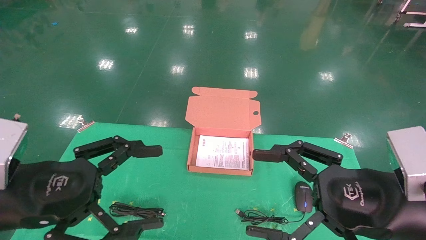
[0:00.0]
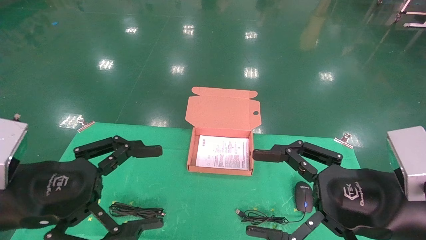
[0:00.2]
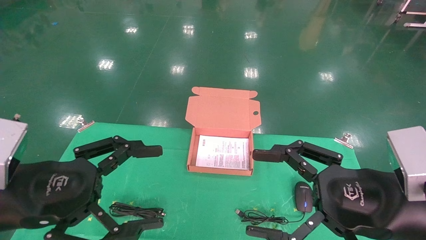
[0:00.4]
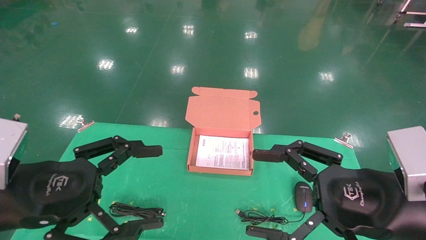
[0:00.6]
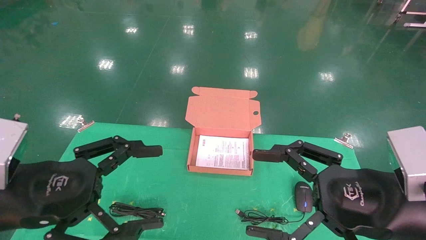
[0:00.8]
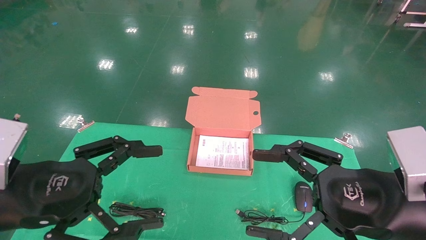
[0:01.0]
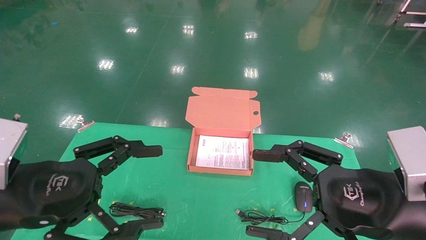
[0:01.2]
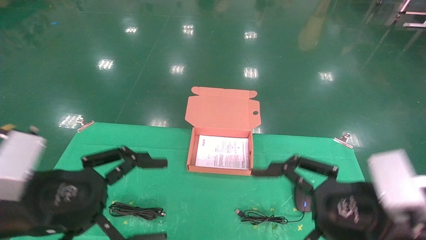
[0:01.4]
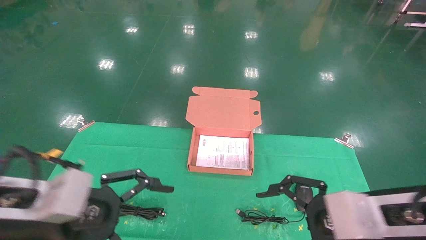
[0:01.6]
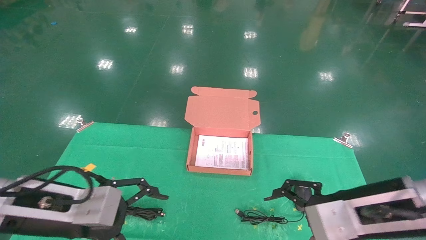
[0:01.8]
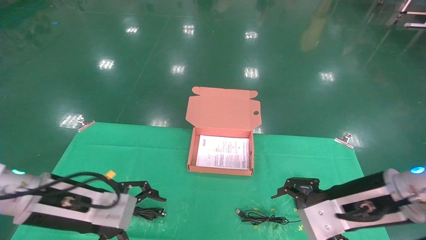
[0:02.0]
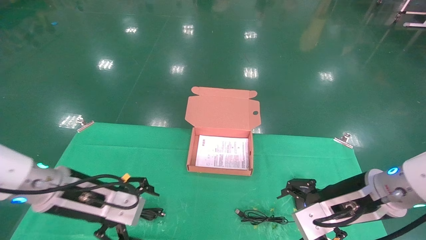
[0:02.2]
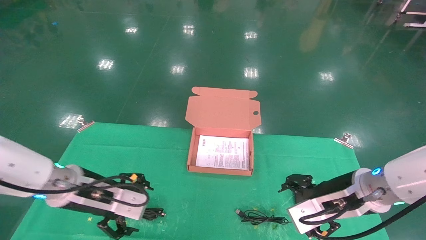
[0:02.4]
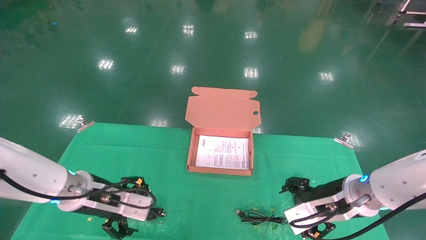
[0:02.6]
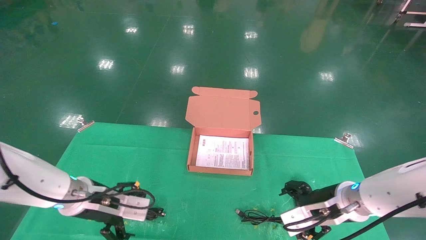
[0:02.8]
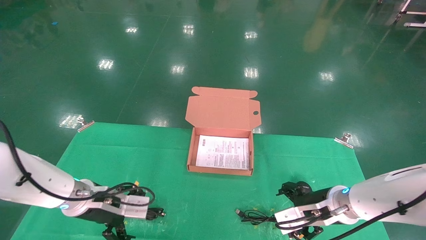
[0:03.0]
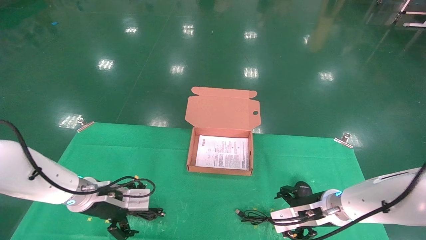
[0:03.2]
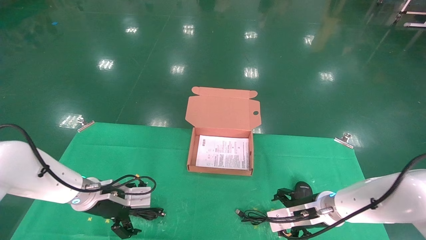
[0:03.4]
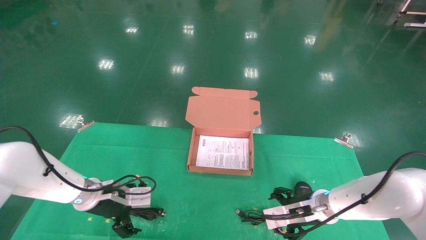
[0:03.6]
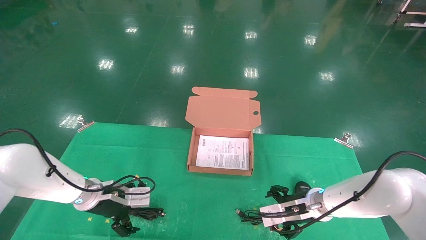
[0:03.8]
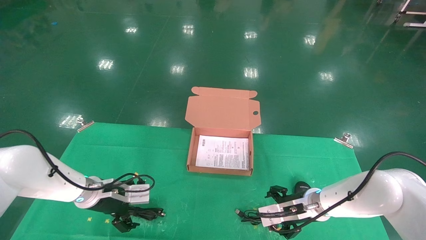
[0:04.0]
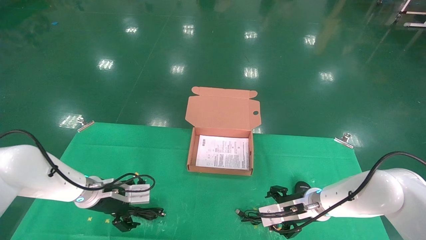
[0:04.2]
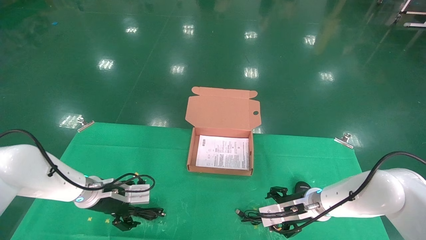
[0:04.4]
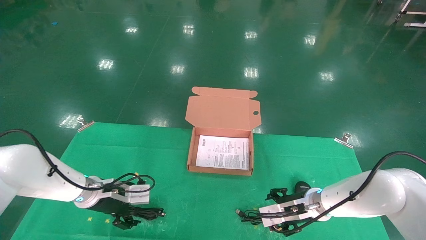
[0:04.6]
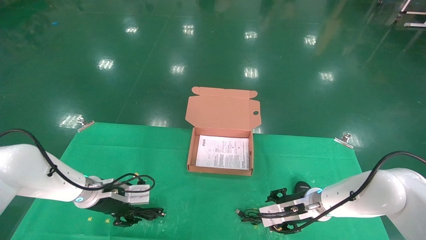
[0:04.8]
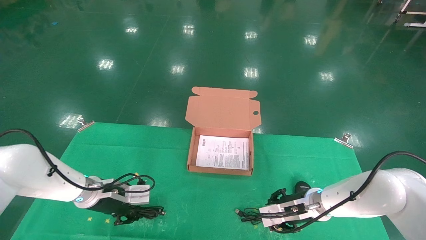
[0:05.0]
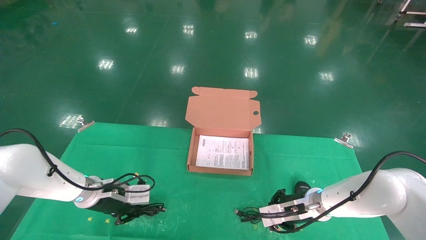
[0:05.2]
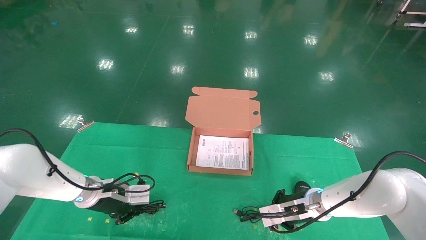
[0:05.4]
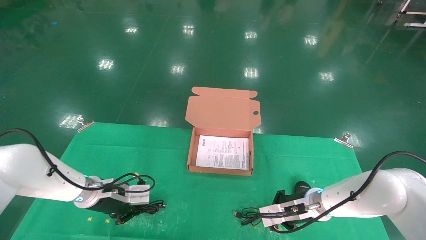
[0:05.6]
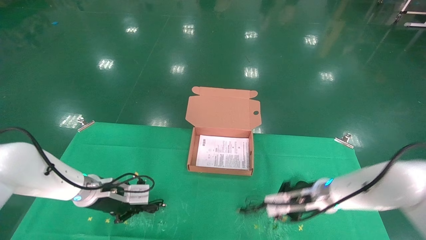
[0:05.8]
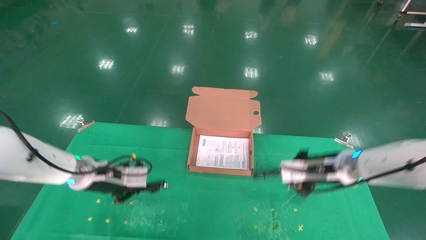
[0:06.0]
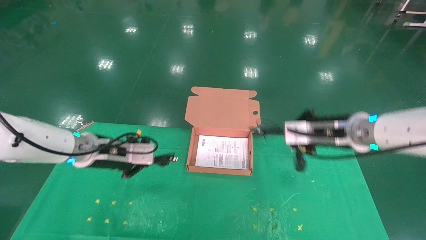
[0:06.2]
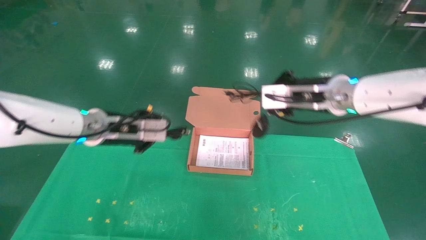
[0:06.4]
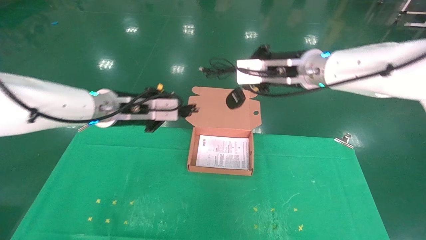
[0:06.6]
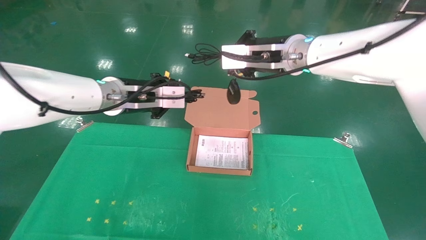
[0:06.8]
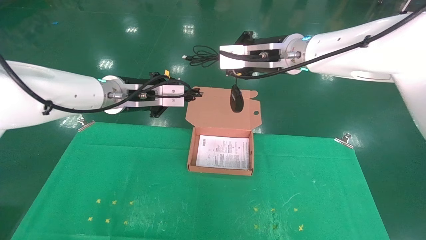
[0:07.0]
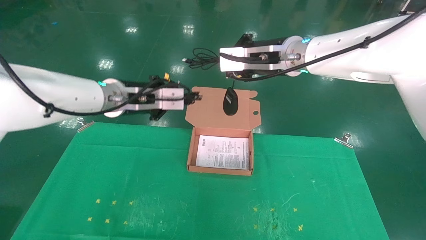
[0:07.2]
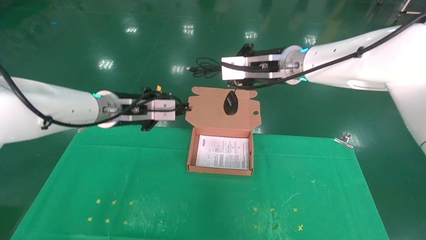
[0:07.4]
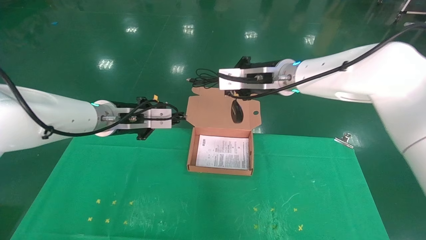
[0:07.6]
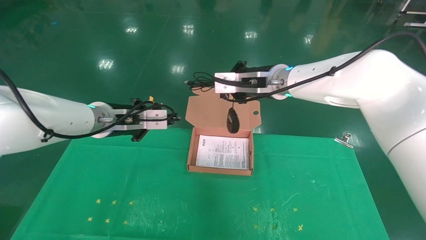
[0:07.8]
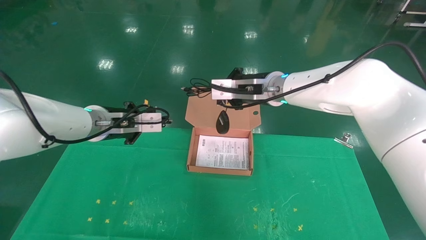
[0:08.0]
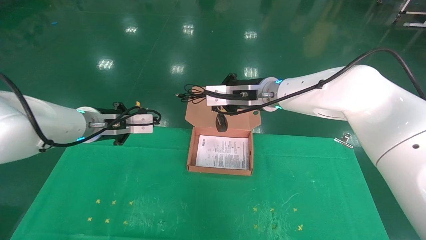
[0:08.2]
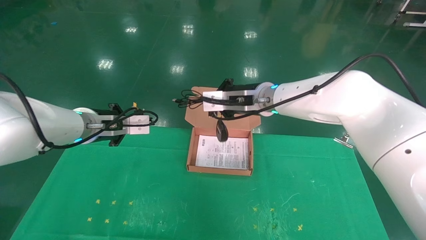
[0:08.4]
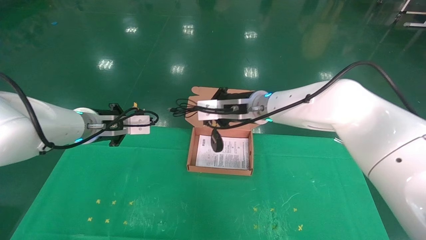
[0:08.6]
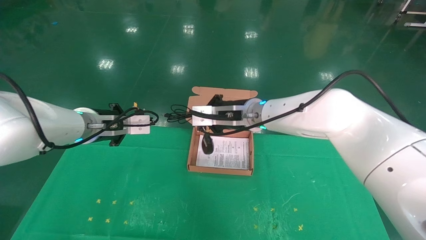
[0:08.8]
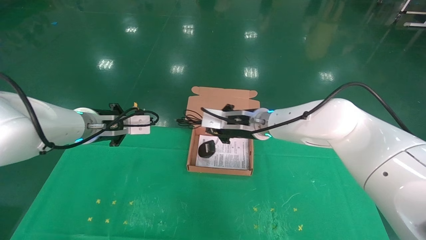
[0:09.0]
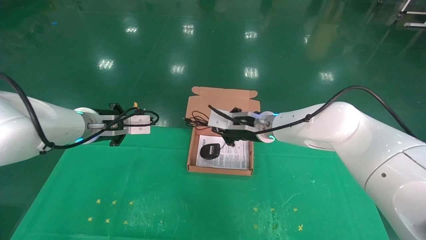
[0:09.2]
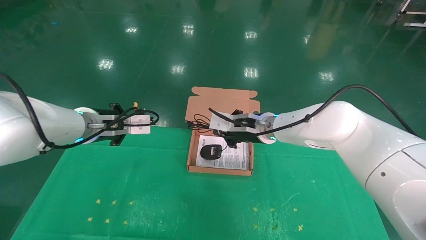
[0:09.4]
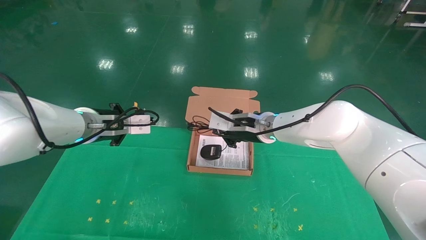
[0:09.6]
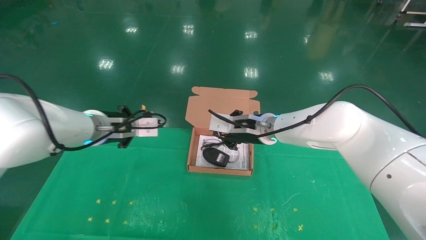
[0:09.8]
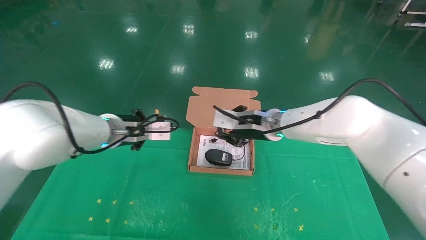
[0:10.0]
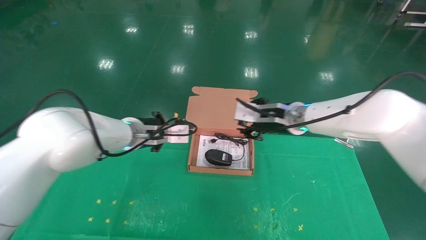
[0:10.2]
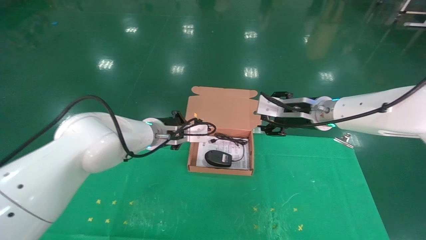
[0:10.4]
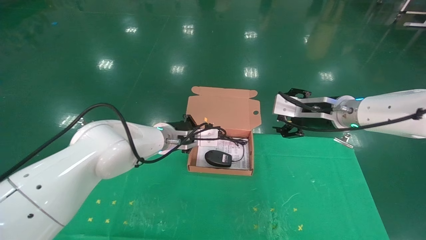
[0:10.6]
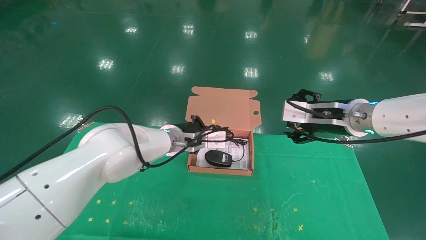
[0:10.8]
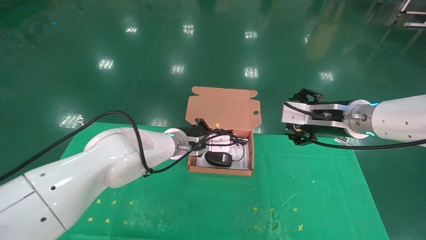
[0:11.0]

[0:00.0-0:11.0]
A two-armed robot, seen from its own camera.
Task of the whole recording: grasp data cable left put into box grasp mouse right put into box.
Step, 0:01.6 to 0:05.4: Grab and pick up both the mouse and power cord from the accessory packaging area at the same time.
0:00.0 to 0:01.6: The left gripper ends up roughly 5 cm from where it was.
0:01.6 to 0:03.2: Both grippers move forward and downward, approximately 20 cm.
0:03.2 to 0:04.8: The right gripper changes place by about 5 cm.
0:04.8 to 0:06.2: The left gripper goes approximately 15 cm upward, and closes up; the right gripper goes some 25 cm upward, and closes.
0:06.2 to 0:07.8: The right gripper heads to the left and forward, covering approximately 10 cm.
0:07.8 to 0:09.4: The right gripper moves downward, about 10 cm.
0:09.4 to 0:11.0: The right gripper goes roughly 15 cm to the right and backward, and opens up. Meanwhile the left gripper goes about 20 cm to the right.

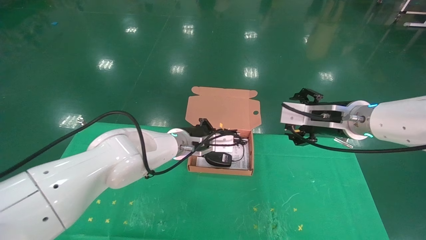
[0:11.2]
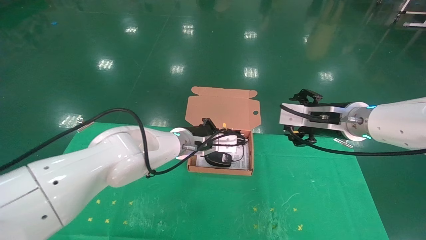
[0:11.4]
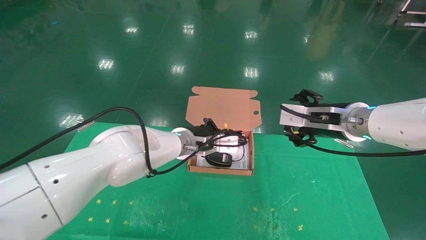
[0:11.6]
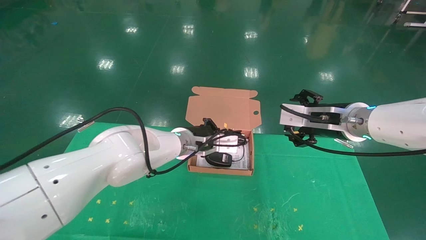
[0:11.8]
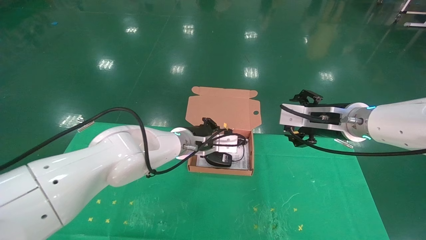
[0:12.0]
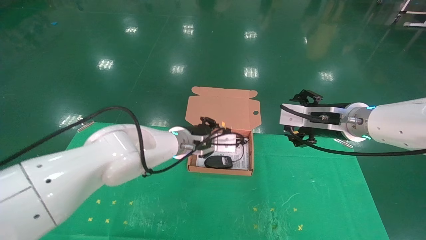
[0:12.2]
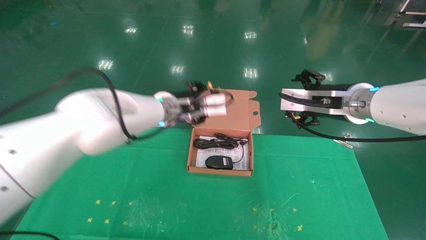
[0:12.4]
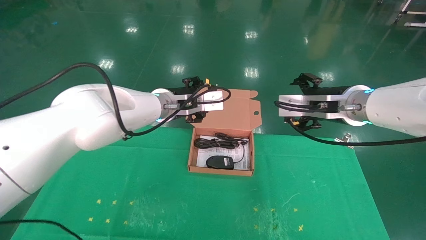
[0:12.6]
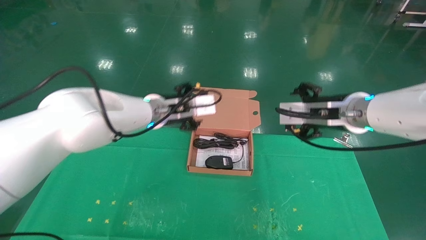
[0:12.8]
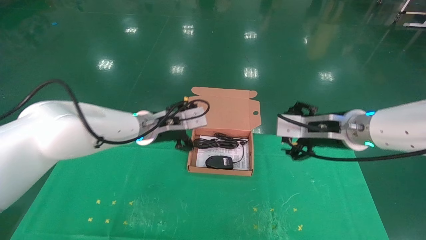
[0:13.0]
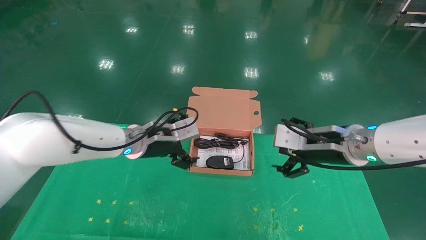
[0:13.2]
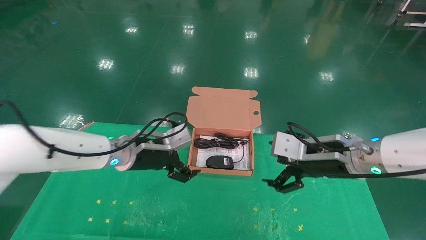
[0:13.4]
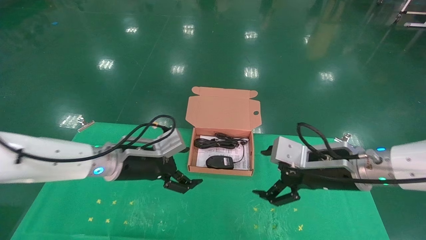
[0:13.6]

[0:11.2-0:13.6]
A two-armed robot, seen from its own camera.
Task of the whole recording: grasp data cable left put into box grasp mouse right put into box.
0:11.2 to 0:12.4: The left gripper shifts some 5 cm upward, and opens.
0:12.4 to 0:13.6: The left gripper is displaced to the left, downward and backward by roughly 15 cm, and opens. Meanwhile the right gripper goes roughly 10 cm downward and backward.

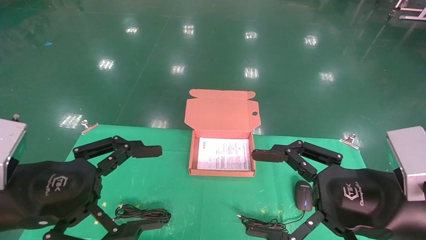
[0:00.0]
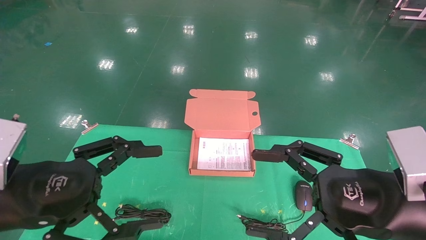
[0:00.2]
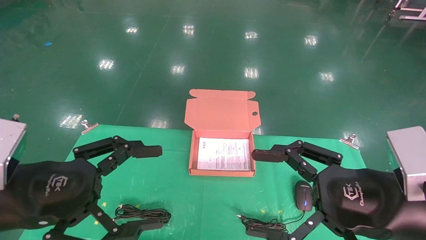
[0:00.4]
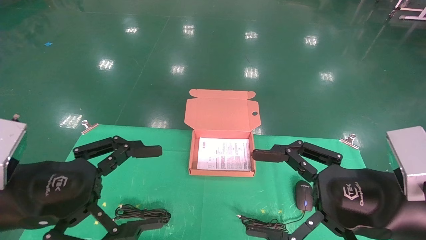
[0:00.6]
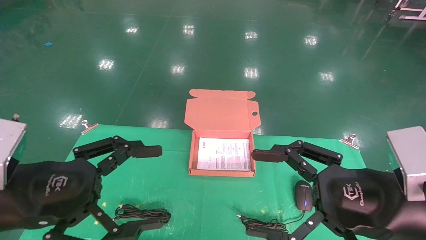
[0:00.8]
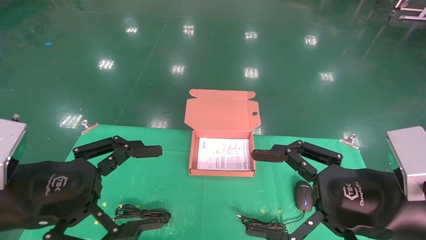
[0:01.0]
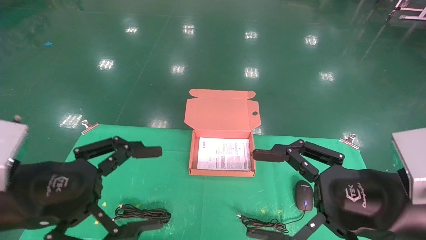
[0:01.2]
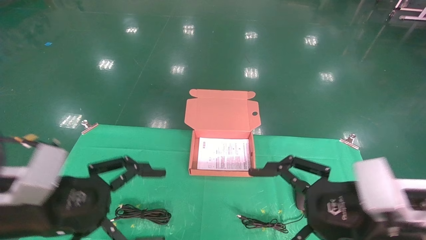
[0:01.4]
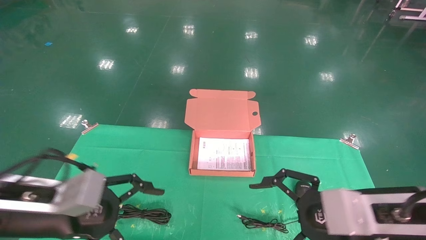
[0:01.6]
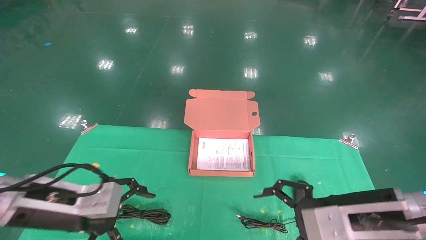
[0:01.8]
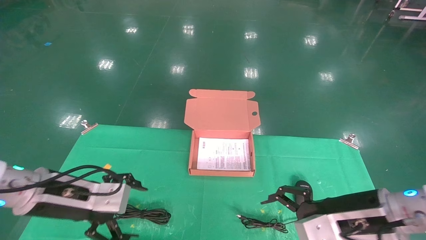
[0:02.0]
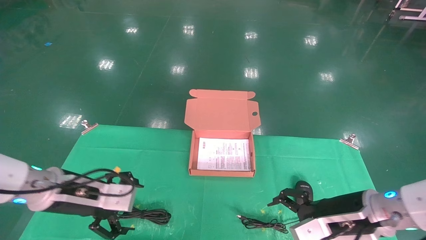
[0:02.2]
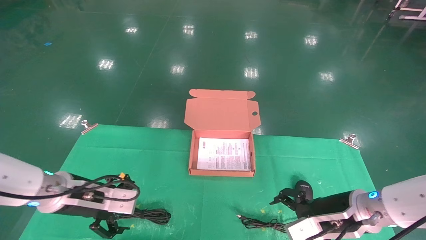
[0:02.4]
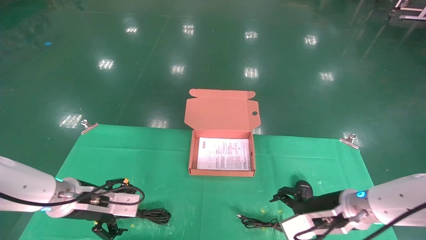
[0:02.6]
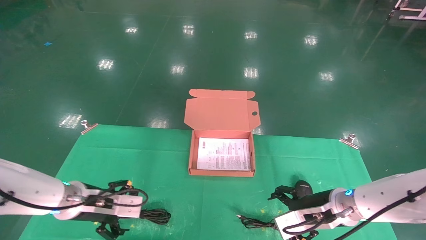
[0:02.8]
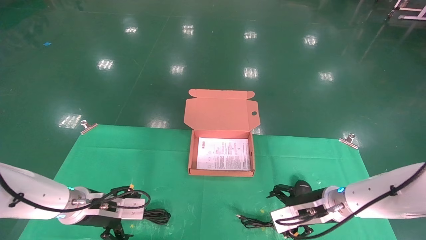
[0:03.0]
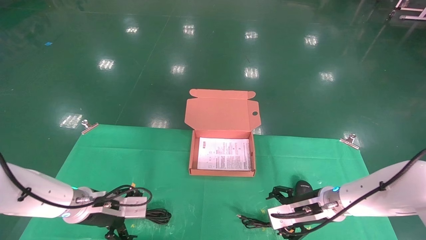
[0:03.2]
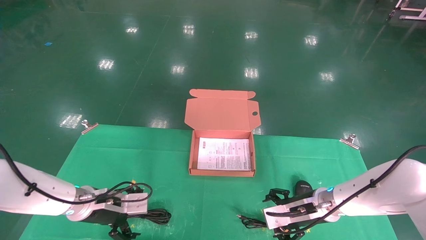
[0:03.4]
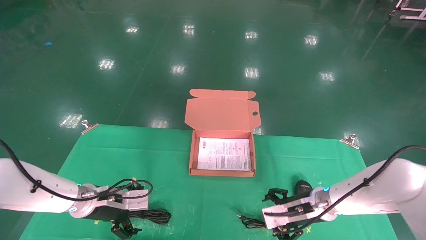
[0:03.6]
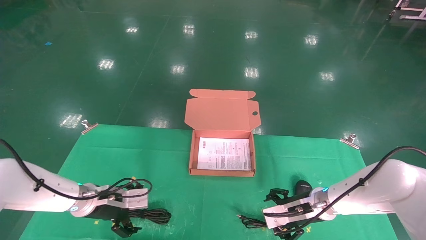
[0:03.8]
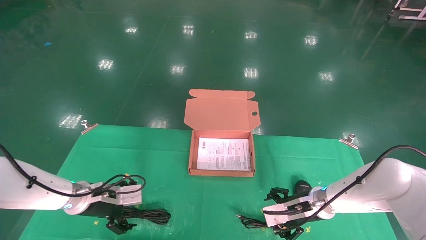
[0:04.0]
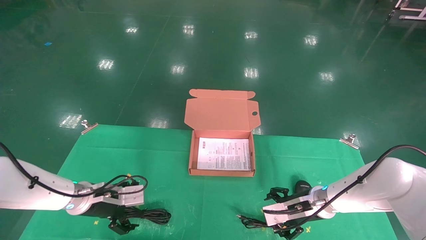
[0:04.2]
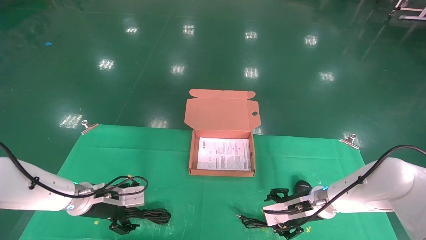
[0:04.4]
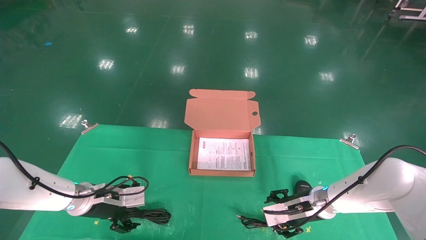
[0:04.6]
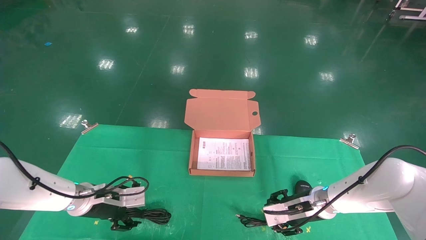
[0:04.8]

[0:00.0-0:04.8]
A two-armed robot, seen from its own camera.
Task of the whole recording: grasp data cable left put into box grasp mouse right put into box.
0:00.0 to 0:01.6: The left gripper ends up some 5 cm from where it was. The right gripper moves about 5 cm.
0:01.6 to 0:03.2: The two grippers go roughly 20 cm forward and downward.
0:03.2 to 0:04.8: The grippers make only small movements.
